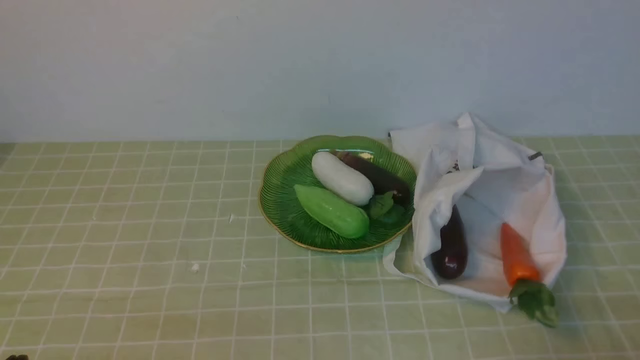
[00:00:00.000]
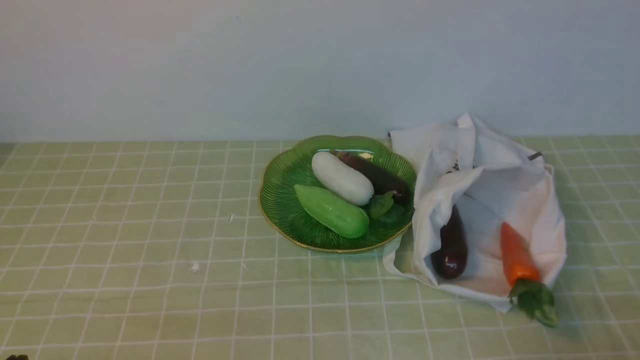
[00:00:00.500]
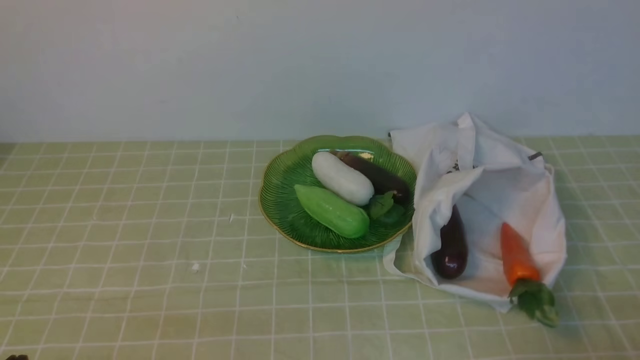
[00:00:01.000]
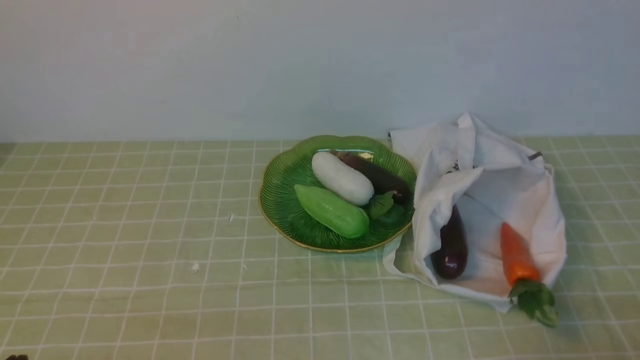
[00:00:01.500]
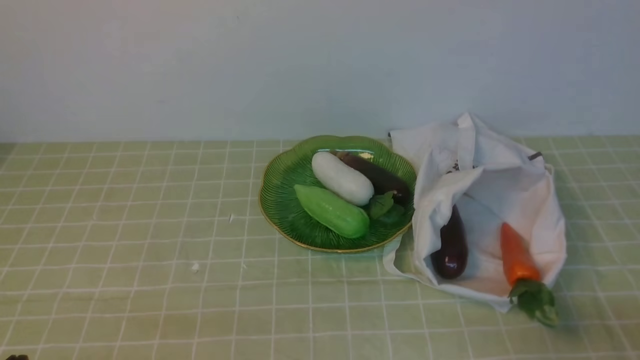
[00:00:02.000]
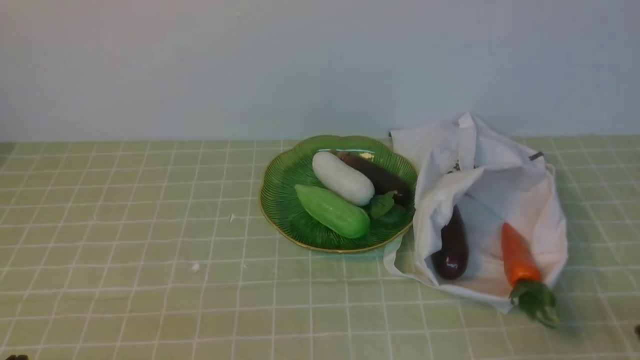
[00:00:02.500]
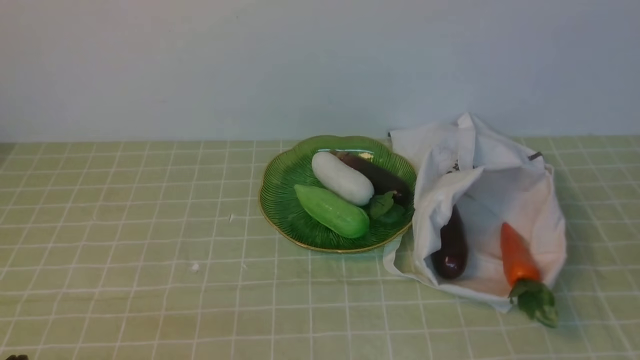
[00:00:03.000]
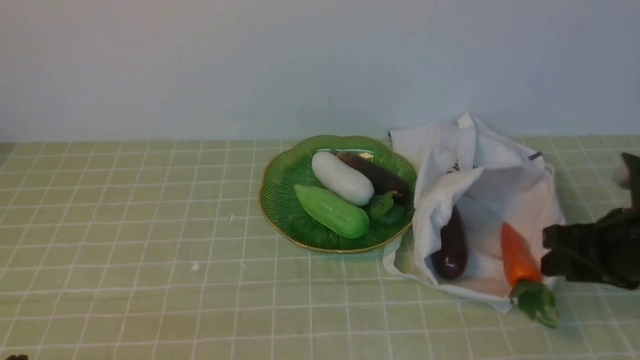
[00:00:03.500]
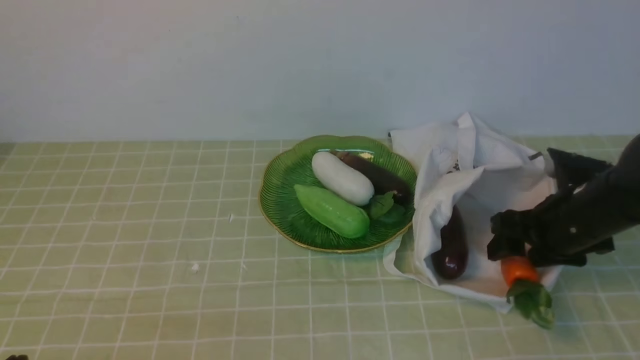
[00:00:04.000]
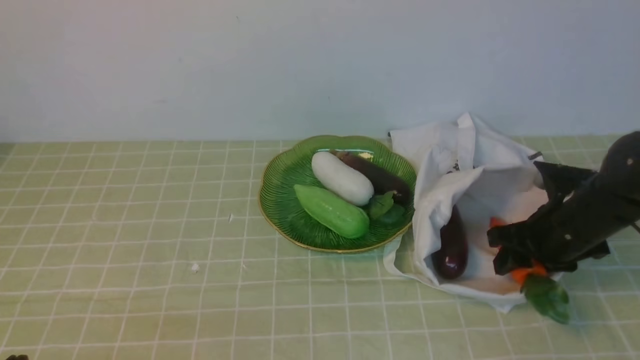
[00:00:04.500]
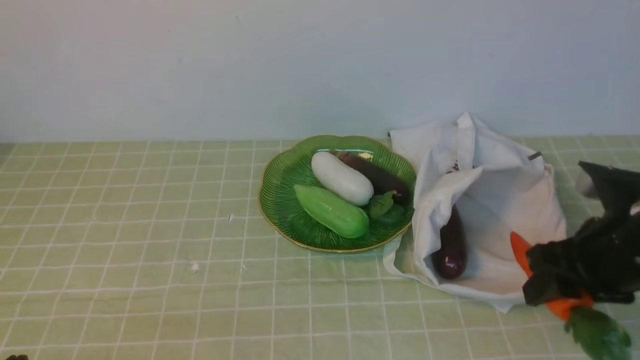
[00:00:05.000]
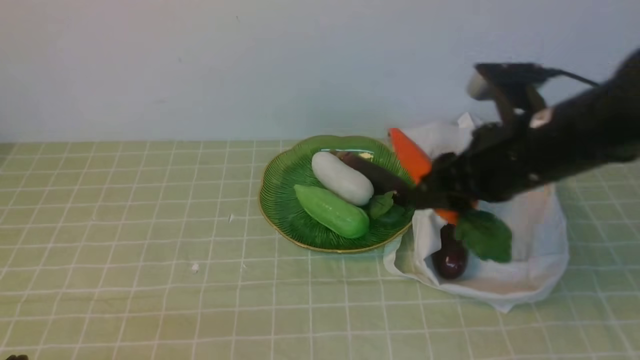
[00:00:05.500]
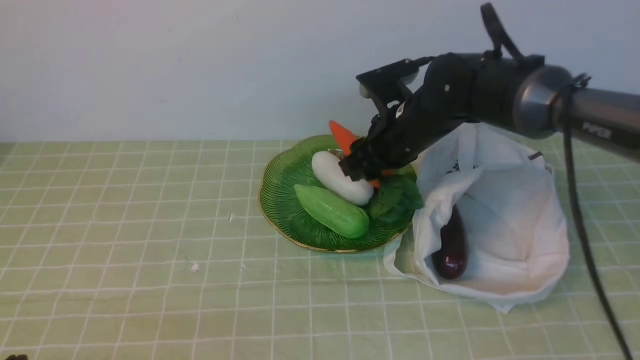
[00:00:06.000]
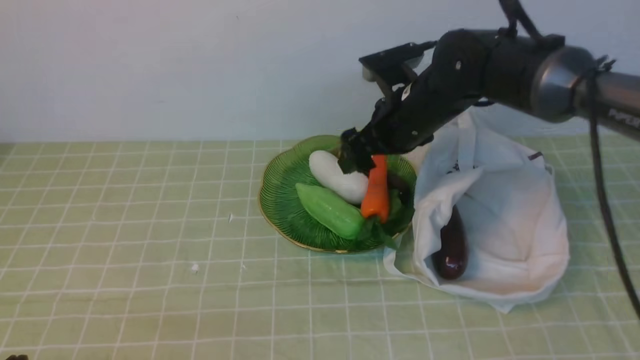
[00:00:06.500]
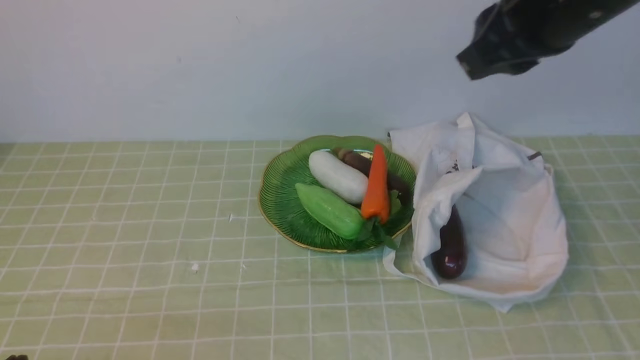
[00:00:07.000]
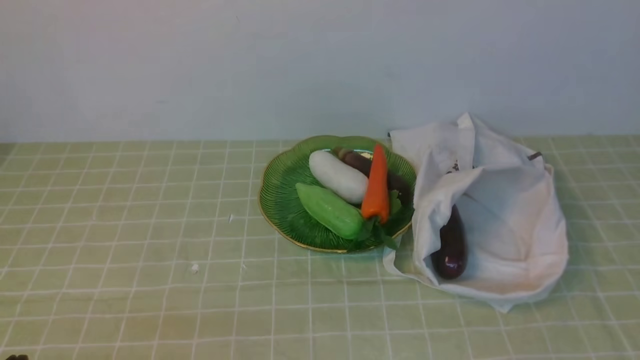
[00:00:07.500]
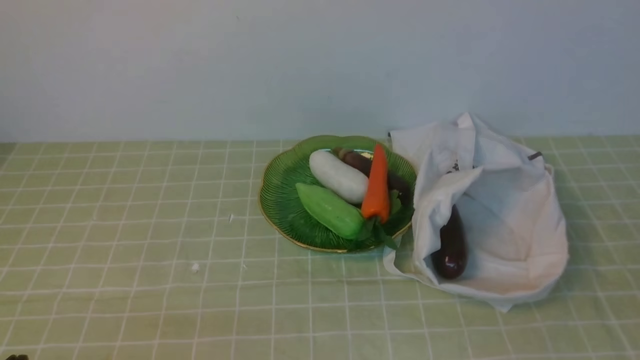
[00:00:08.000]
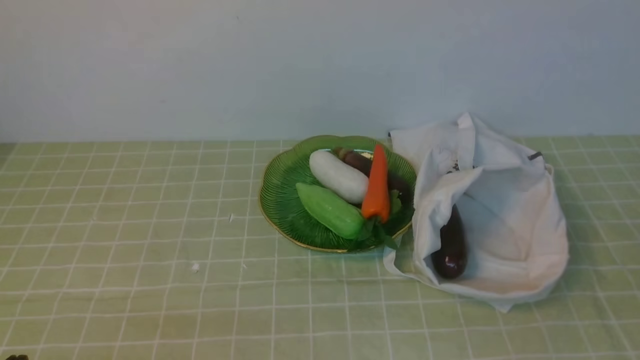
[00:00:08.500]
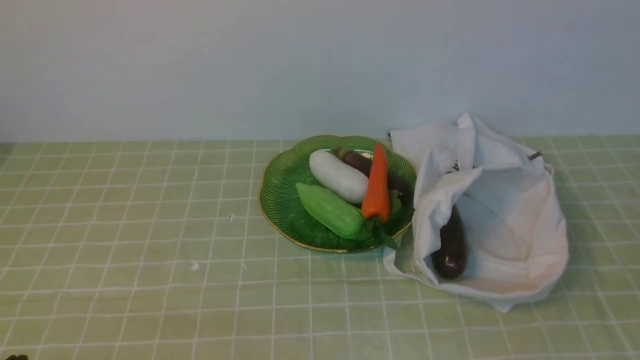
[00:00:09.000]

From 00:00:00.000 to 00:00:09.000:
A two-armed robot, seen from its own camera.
Task of the whole recording: take vegetables from bag on green coffee tablecloth place on plate.
Step, from 00:00:00.000 to 00:00:04.000: Grasp the carrot with right gripper.
Step, from 00:00:04.500 to 00:00:06.000: Place the carrot on the plate with right gripper.
From 00:00:02.000 to 00:00:04.500: The right gripper is displaced forward by roughly 25 cm, and opens.
From 00:00:04.500 to 00:00:07.000: The right gripper moves up and down over roughly 25 cm, changing direction 2 times, and closes its fingers.
From 00:00:07.000 to 00:00:09.000: The right gripper is displaced backward, downward and to the right by some 30 cm.

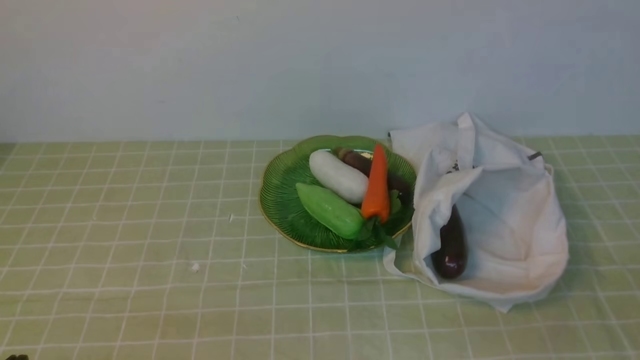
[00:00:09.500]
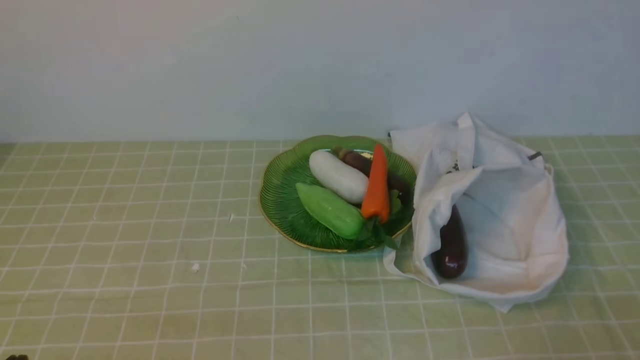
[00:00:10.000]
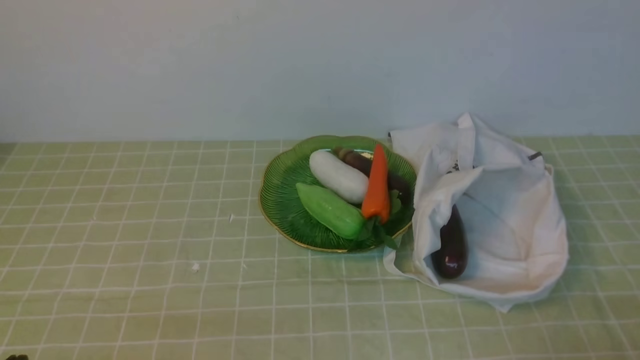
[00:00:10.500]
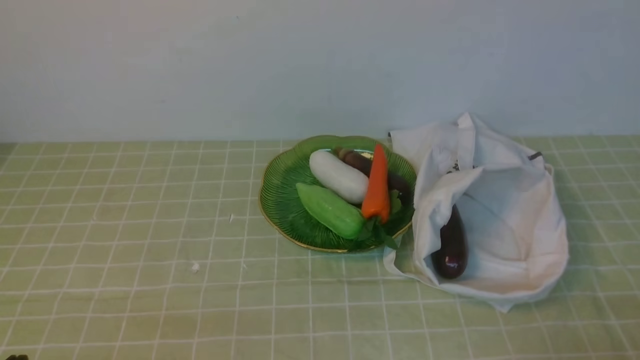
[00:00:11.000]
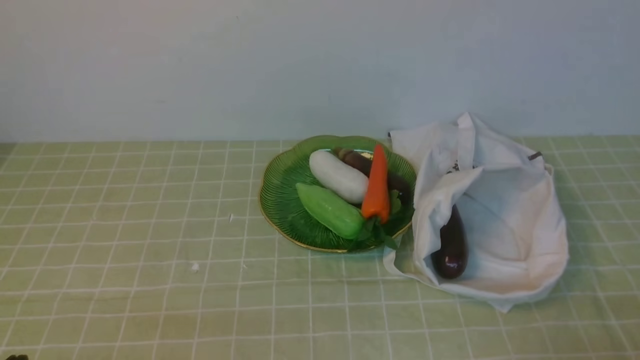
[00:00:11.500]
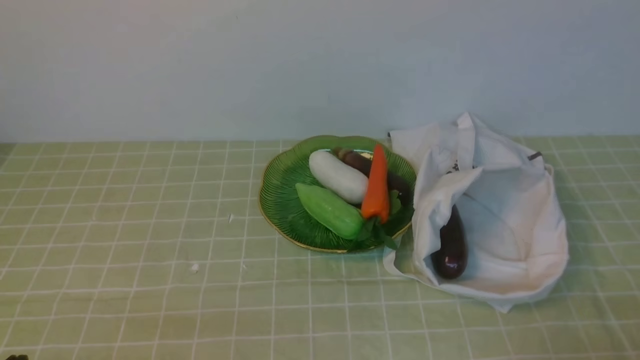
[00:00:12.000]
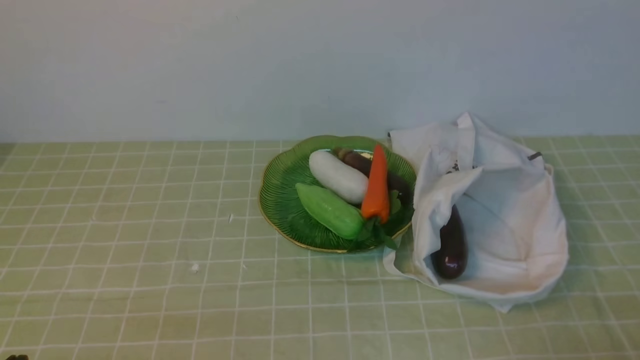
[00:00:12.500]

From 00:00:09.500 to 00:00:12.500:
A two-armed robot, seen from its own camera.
Task of the whole recording: take vegetables from bag on green coffee tablecloth place on plate.
From 00:00:11.000 to 00:00:12.500: The two grippers keep their place.
